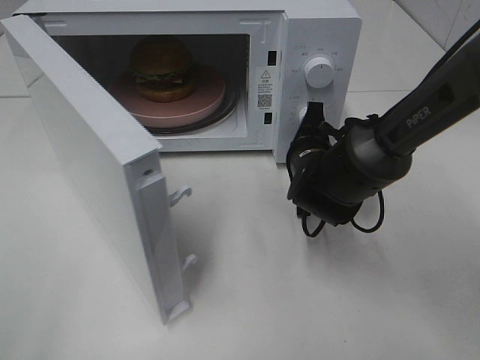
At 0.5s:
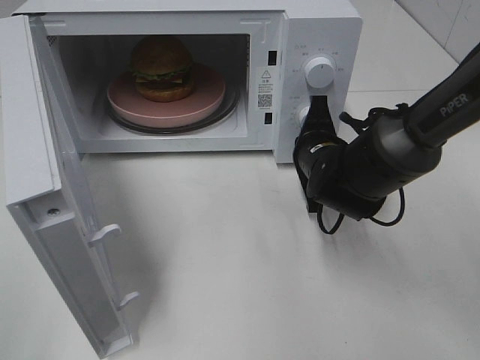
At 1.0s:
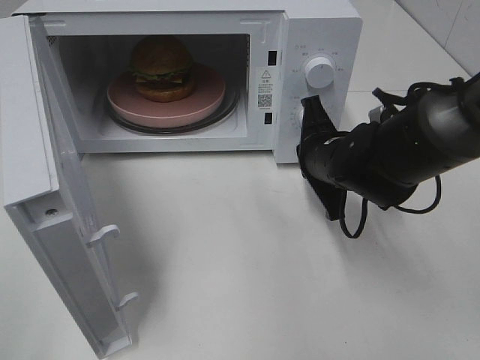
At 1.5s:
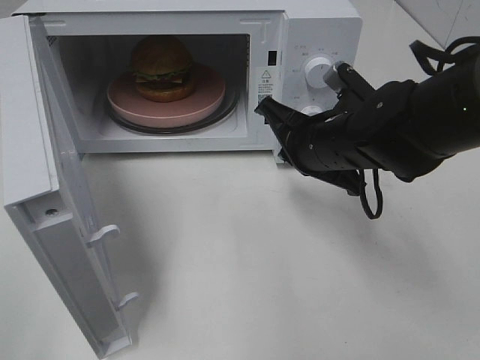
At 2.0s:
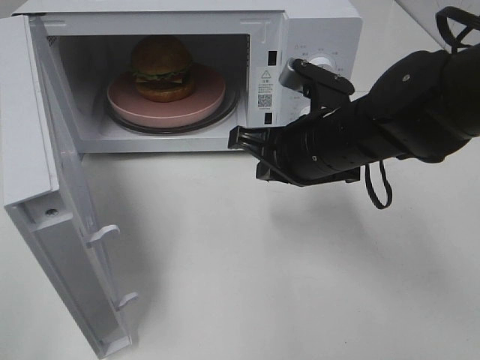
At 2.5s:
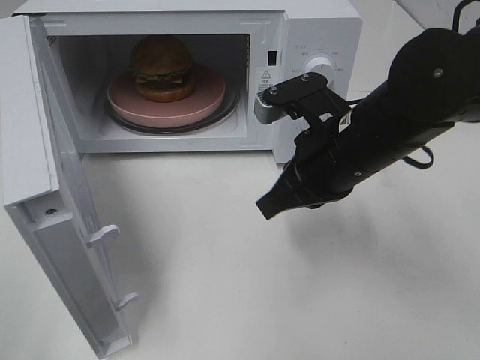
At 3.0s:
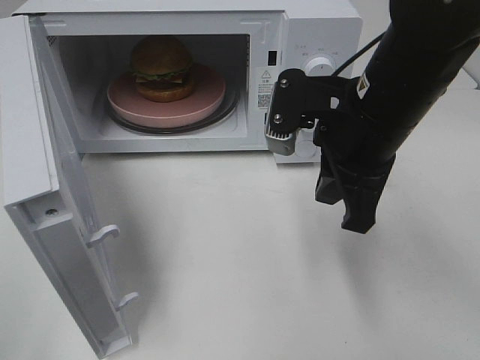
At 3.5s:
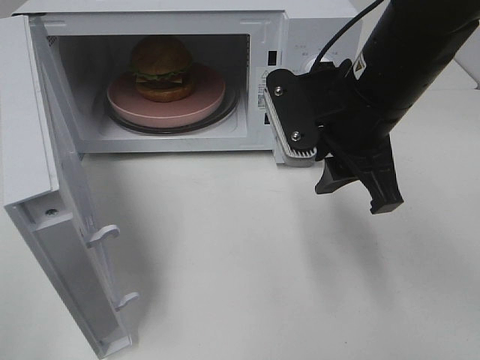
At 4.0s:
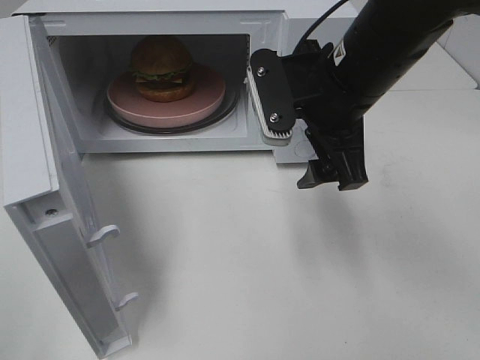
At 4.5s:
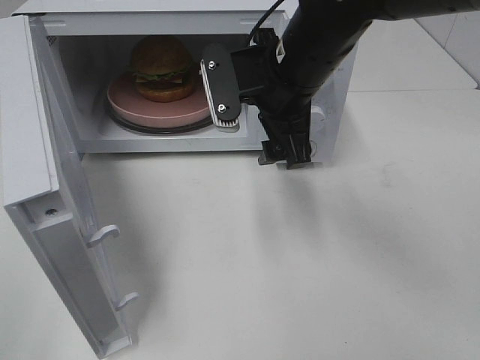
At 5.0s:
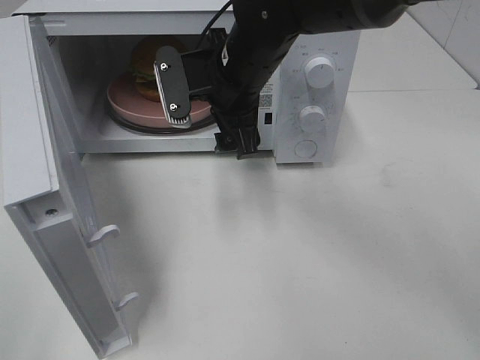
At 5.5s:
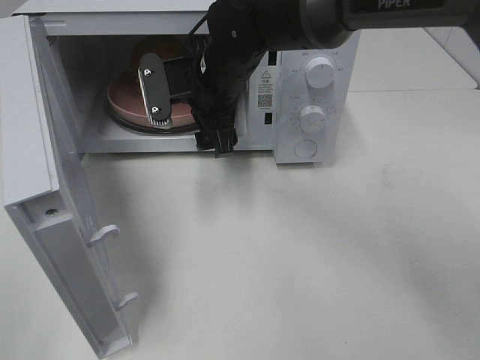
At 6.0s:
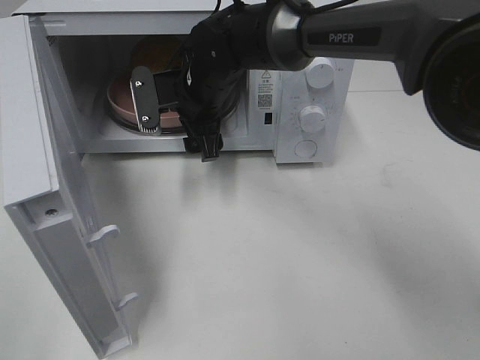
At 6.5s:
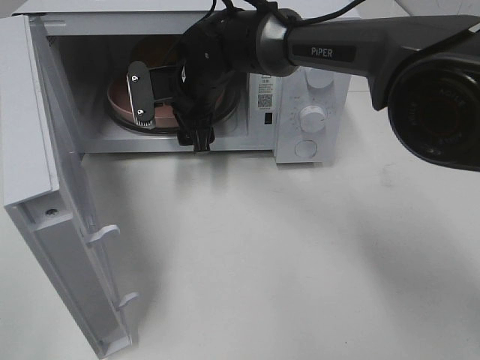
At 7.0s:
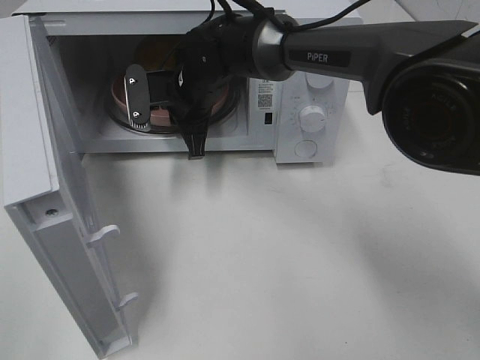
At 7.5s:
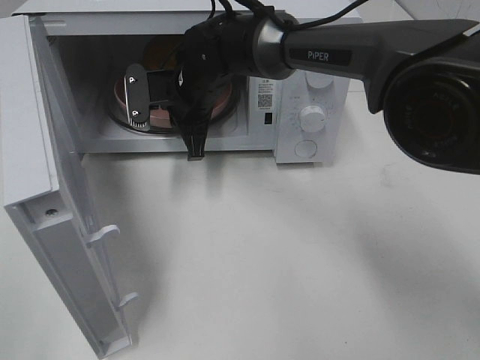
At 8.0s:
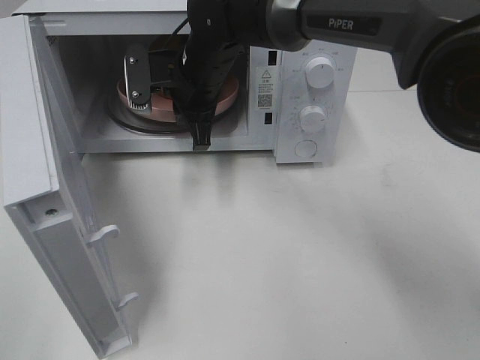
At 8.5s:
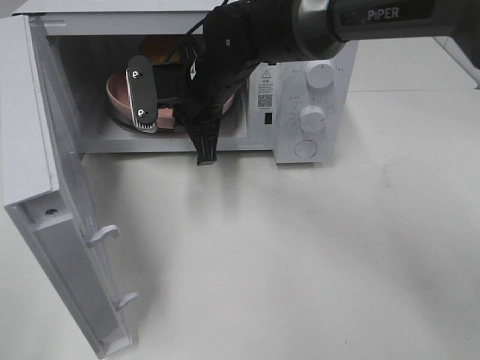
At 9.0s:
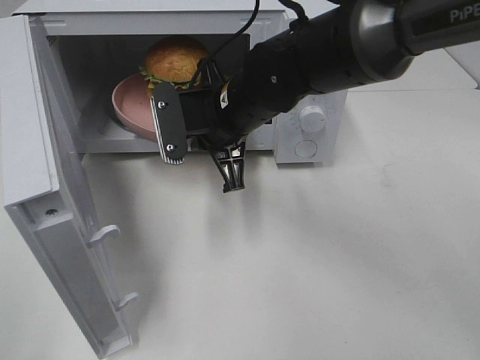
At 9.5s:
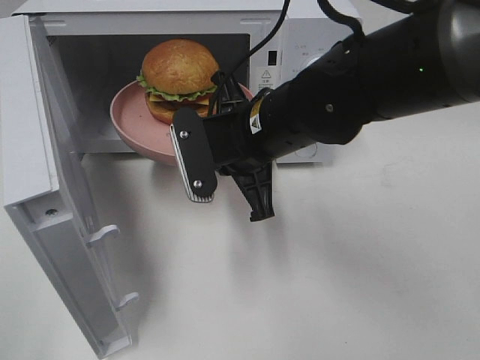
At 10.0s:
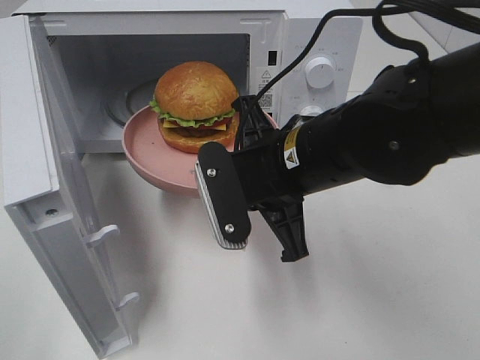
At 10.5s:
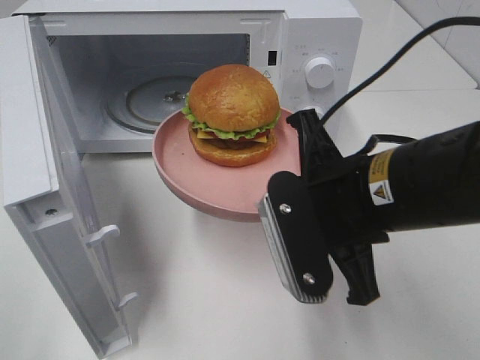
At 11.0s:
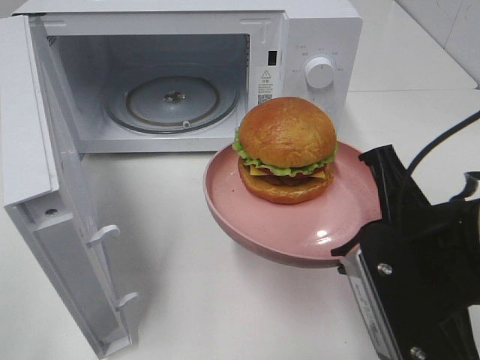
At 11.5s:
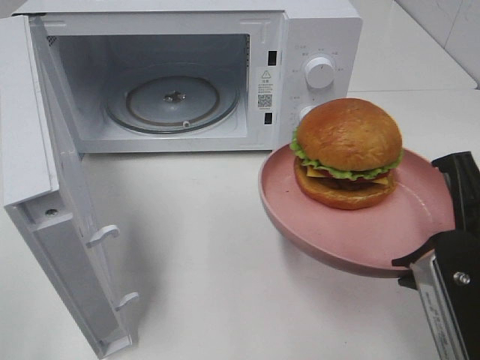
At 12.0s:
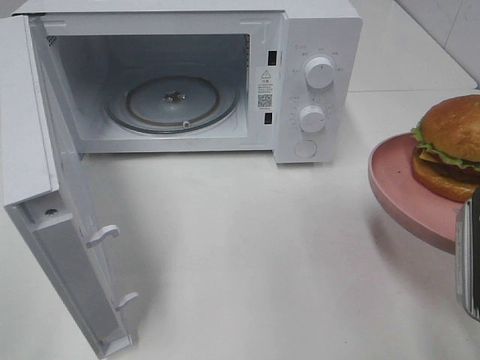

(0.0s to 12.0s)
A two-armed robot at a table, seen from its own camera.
Task of the whole recording: Heat the burger.
Step, 1.0s - 7.0s: Right hand: grab the plate with the hamburger.
0.0s - 2.0s: The right gripper is displaced upward and backward by roughly 10 cm.
2.0s - 4.0s: The right gripper heads upward, covering approximately 5 cm, and opens.
4.0s - 6.0s: The right gripper heads to the left, forward and downward, covering some 20 cm.
6.0s - 8.0s: The right gripper closes.
8.0s - 10.0s: The right gripper travels backward and to the right by approximately 20 cm.
10.0s - 12.0s: The right gripper is displaced to the right and backward by about 20 cm.

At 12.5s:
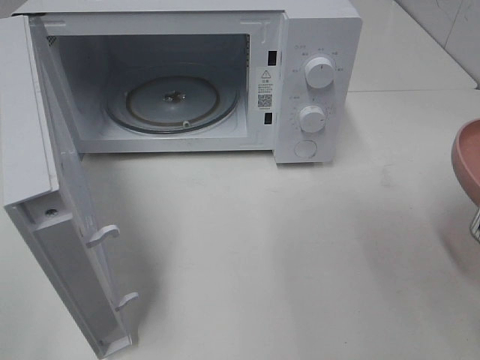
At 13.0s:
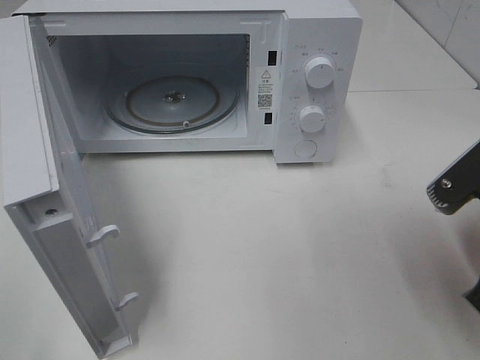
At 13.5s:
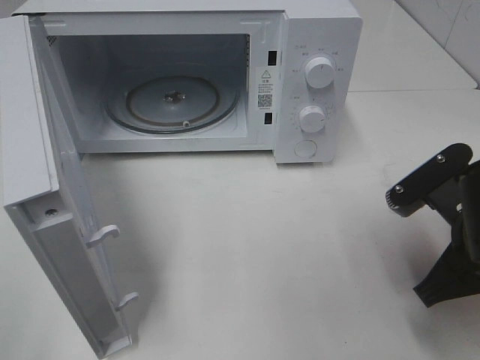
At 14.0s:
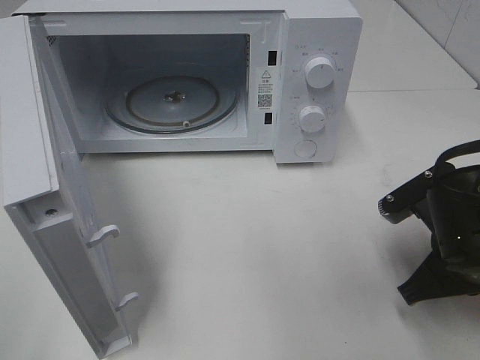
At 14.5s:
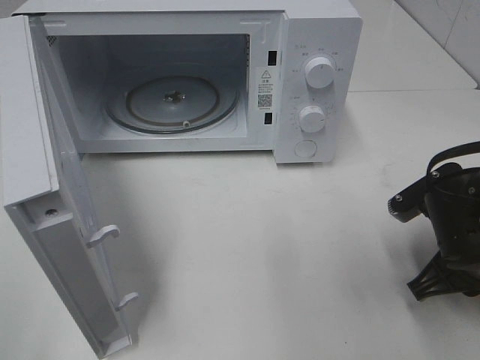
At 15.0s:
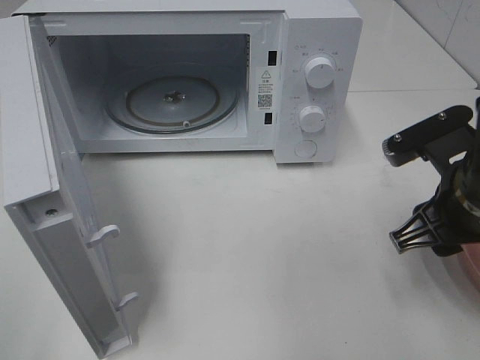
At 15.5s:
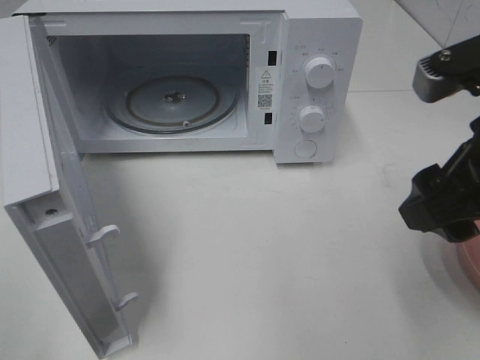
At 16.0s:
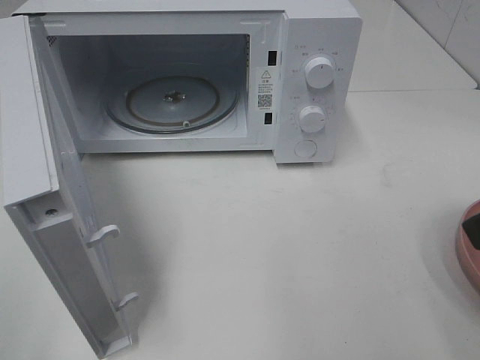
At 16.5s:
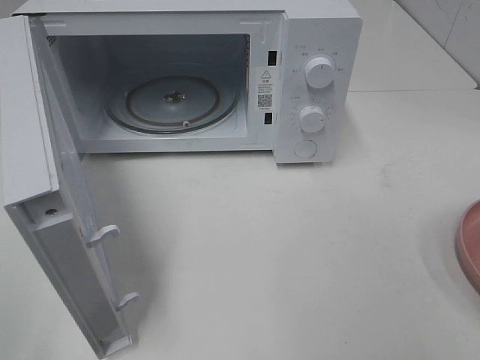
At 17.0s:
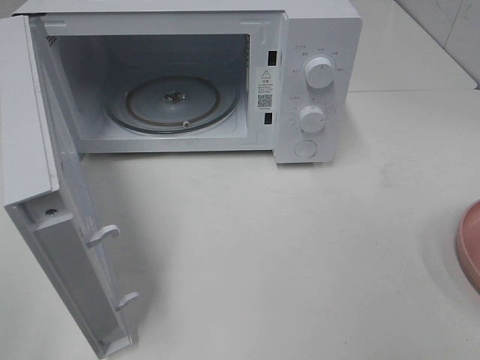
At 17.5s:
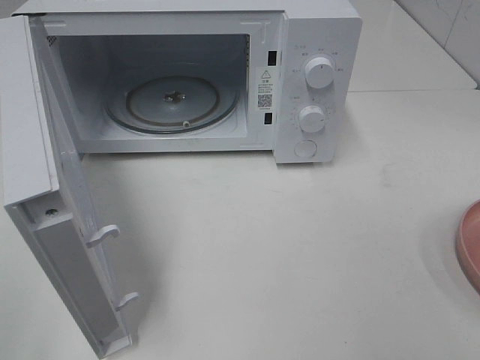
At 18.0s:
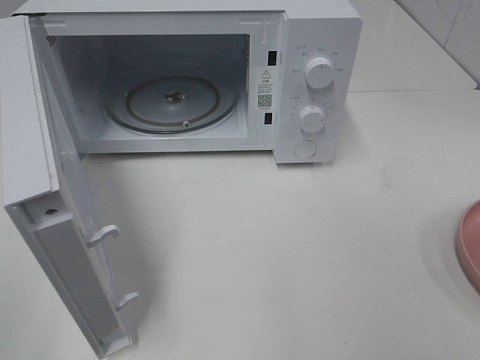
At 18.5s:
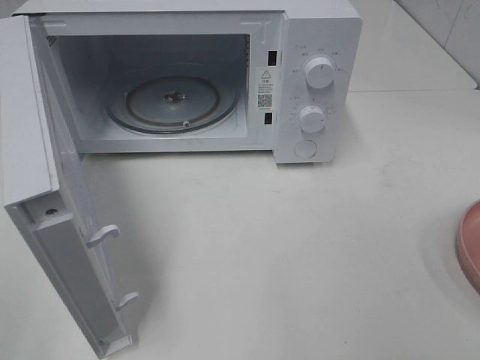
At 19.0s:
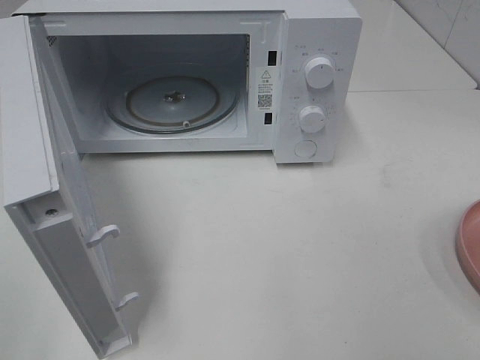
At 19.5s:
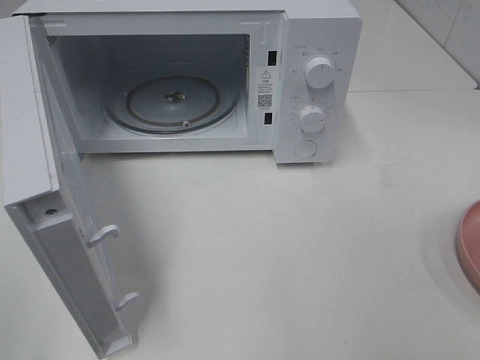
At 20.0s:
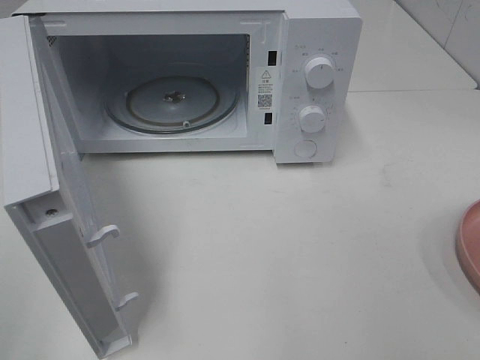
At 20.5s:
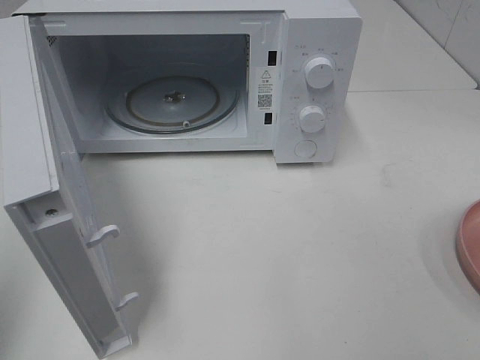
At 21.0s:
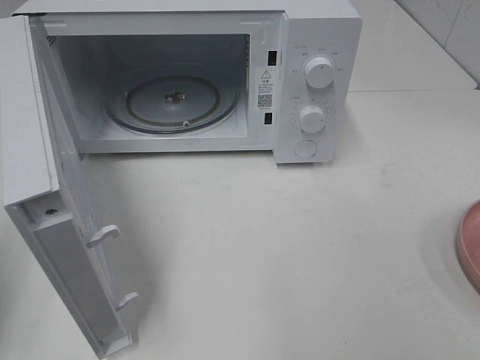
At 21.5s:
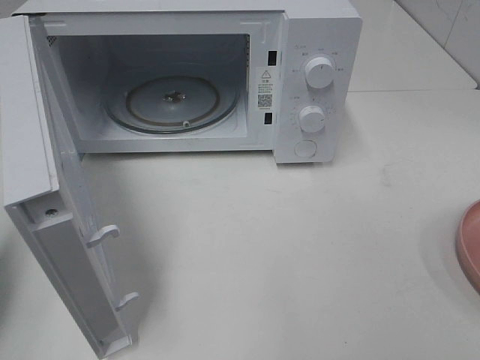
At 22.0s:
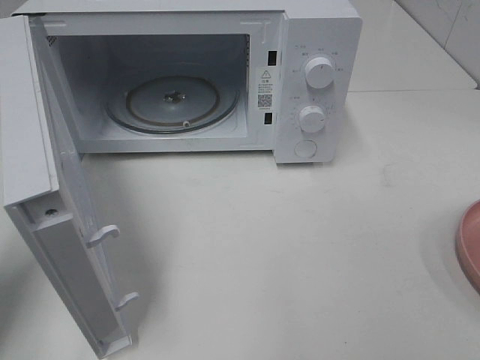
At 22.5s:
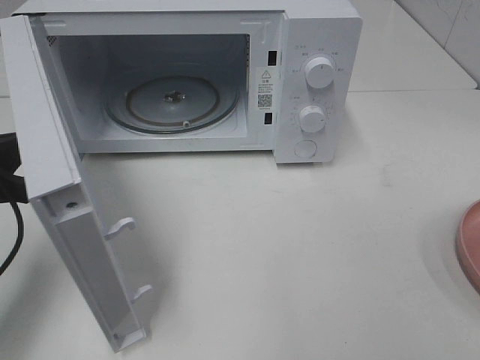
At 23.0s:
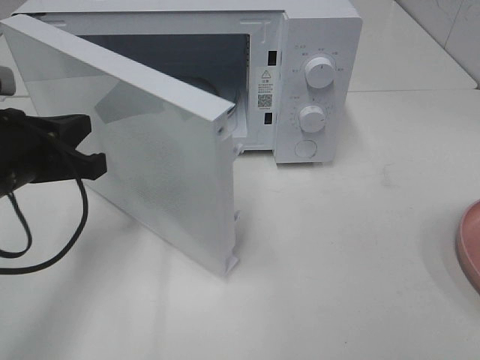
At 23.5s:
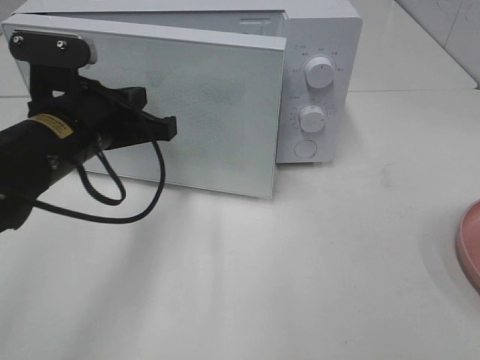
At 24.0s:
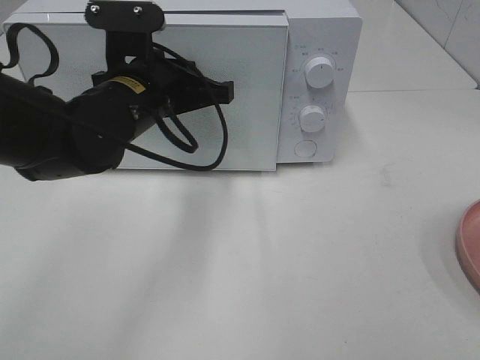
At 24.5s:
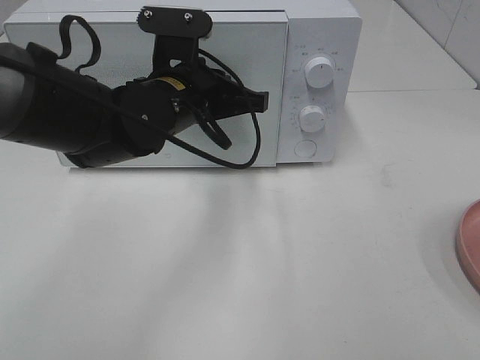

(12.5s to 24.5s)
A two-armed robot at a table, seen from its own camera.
Task of the whole recording: Heat the burger.
Step, 12.5s - 14.5s: Right hand: place the plate on the table.
12.5s - 14.5s: The right gripper goes roughly 15 cm downward and forward, and opens its fingers.
14.5s - 16.5s: The right gripper is displaced upward and backward by roughly 25 cm, and opens up.
20.5s - 22.5s: The left gripper travels forward, downward and to the right by approximately 20 cm.
22.5s - 24.5s: The left gripper travels to the right and forward by some 25 cm.

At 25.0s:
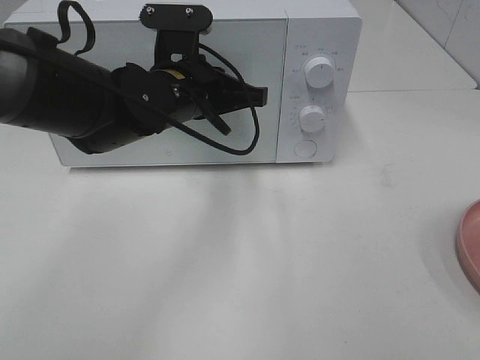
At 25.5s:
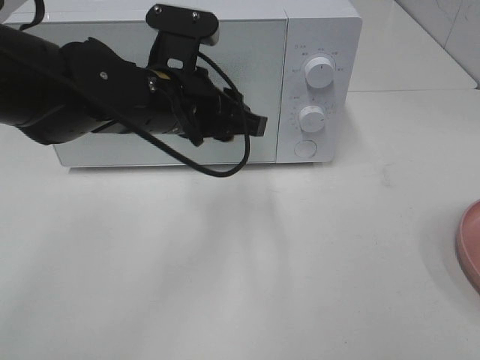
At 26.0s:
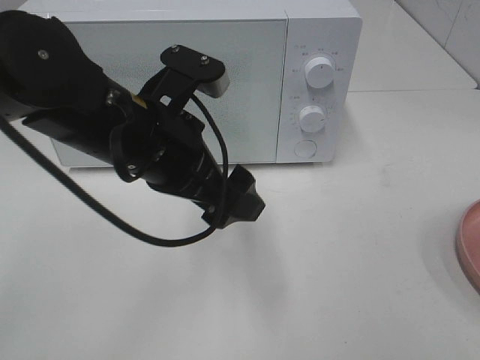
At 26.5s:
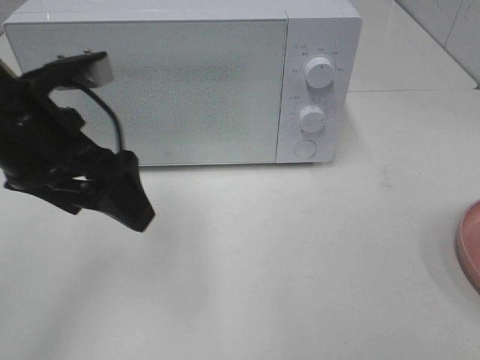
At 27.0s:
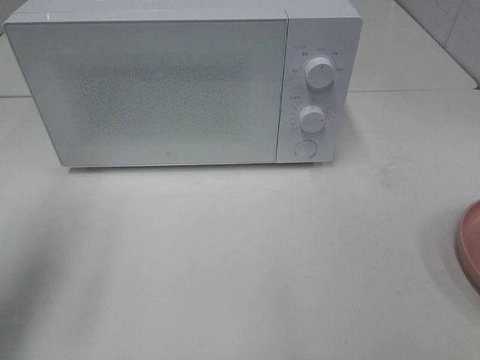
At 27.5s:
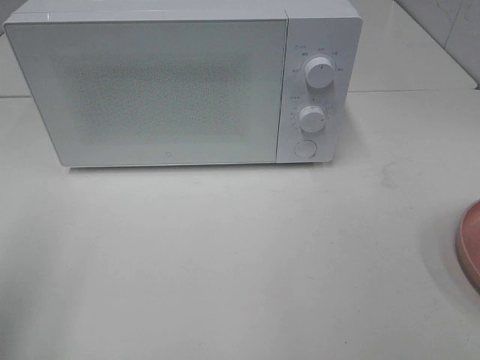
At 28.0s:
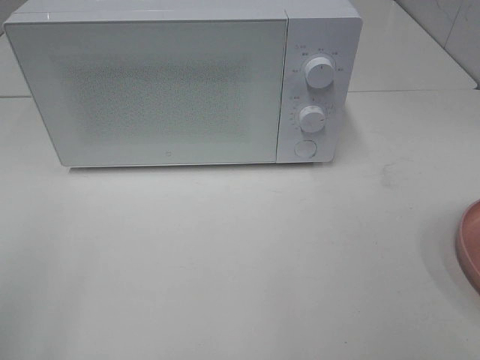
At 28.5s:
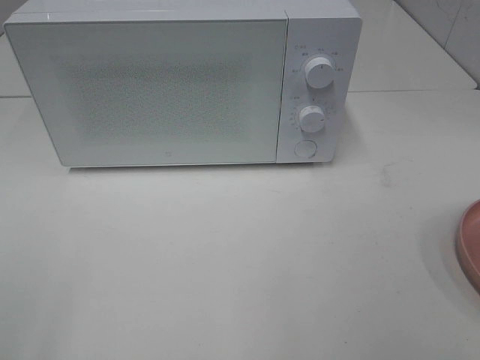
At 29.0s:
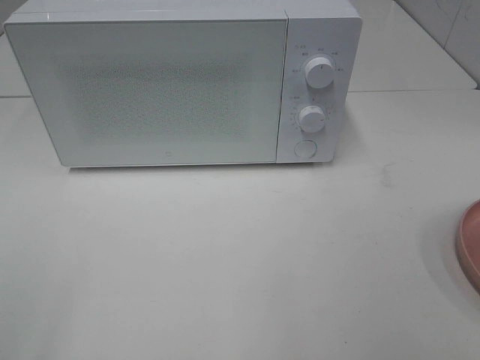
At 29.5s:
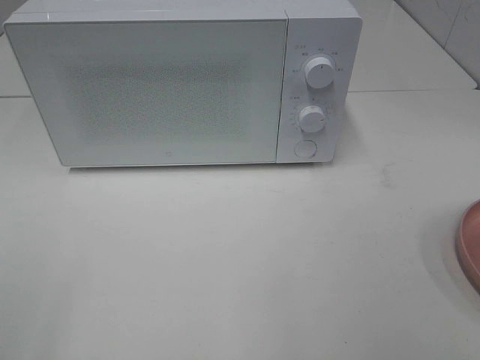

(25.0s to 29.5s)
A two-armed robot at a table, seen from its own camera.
Task of the whole recording: Heat the burger.
25.0s - 27.0s: The left gripper goes roughly 30 cm to the left and backward, and opens up.
27.0s - 29.5s: The left gripper goes roughly 20 cm backward.
